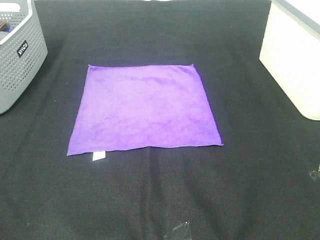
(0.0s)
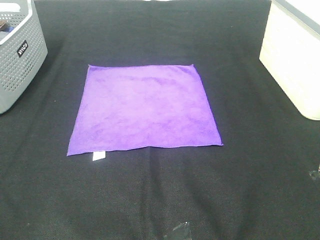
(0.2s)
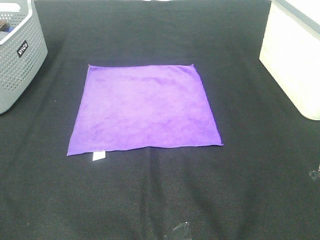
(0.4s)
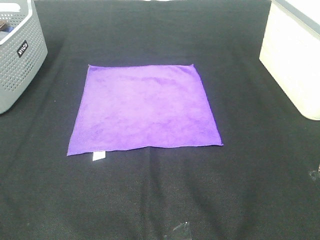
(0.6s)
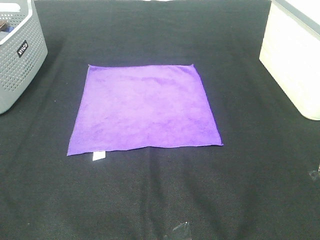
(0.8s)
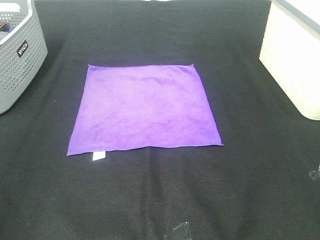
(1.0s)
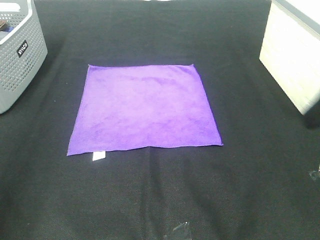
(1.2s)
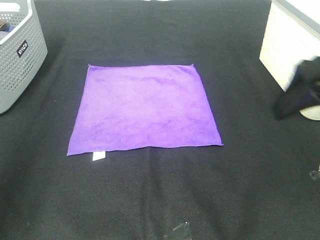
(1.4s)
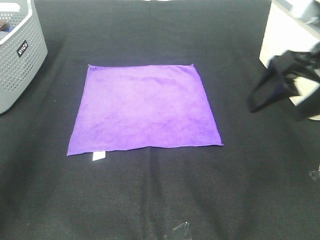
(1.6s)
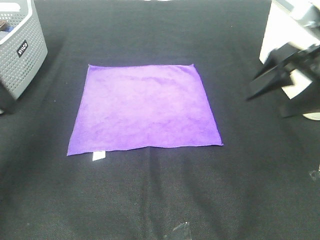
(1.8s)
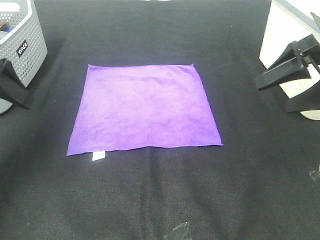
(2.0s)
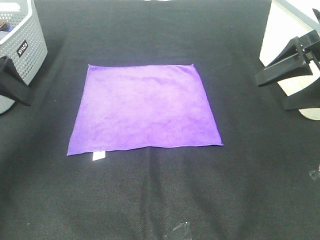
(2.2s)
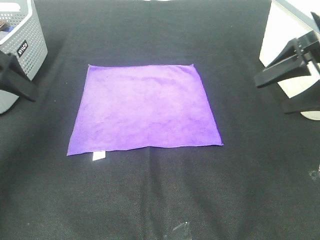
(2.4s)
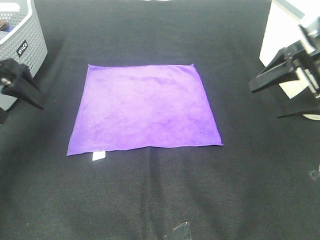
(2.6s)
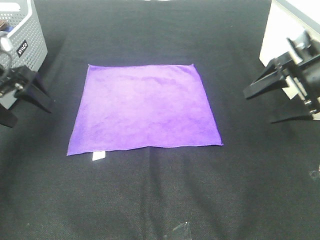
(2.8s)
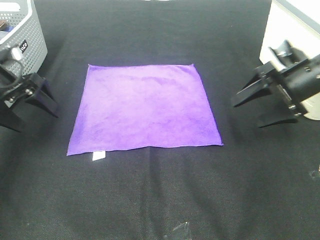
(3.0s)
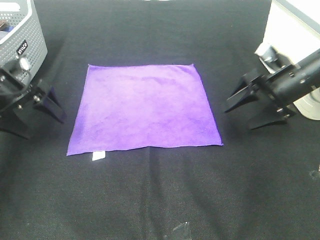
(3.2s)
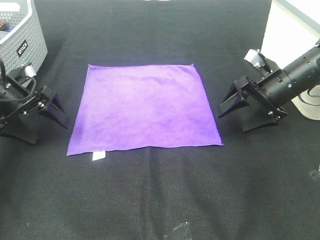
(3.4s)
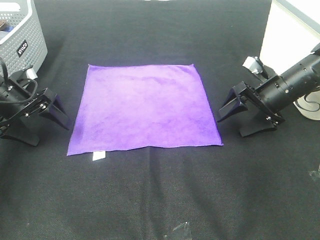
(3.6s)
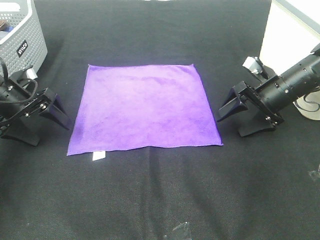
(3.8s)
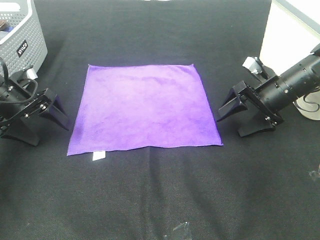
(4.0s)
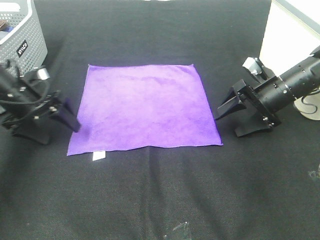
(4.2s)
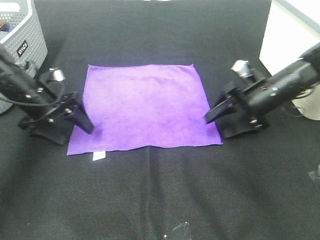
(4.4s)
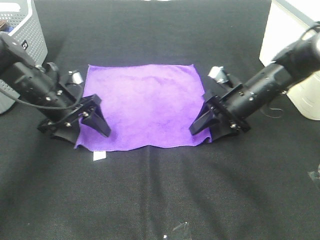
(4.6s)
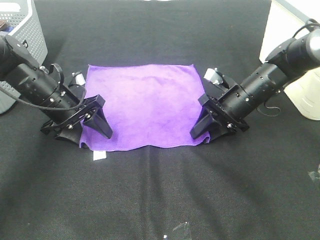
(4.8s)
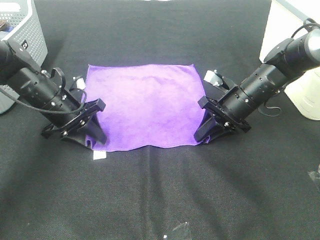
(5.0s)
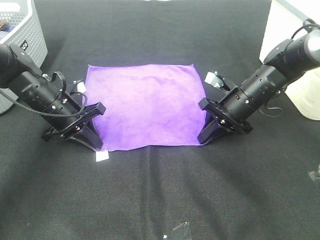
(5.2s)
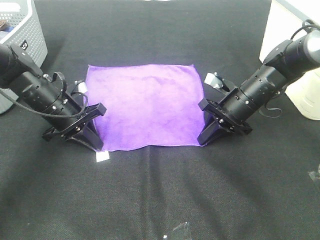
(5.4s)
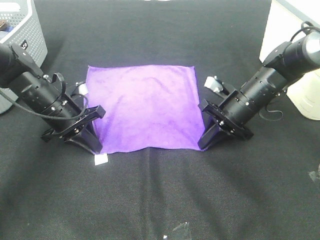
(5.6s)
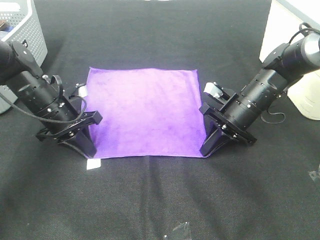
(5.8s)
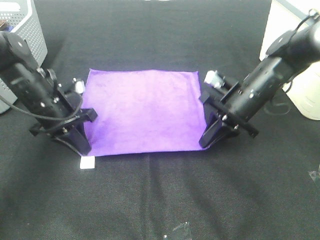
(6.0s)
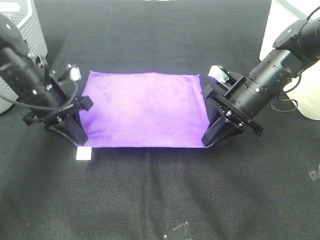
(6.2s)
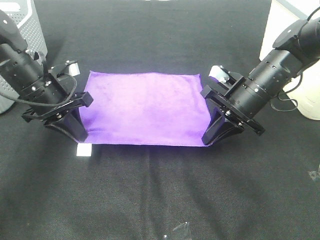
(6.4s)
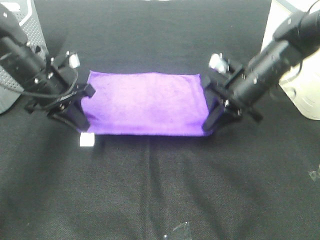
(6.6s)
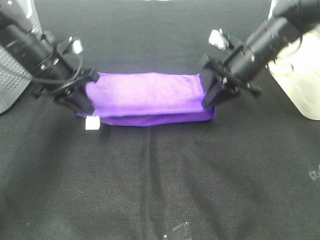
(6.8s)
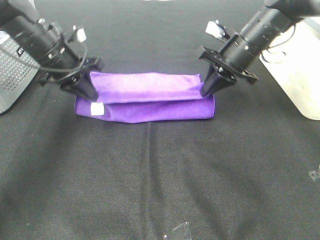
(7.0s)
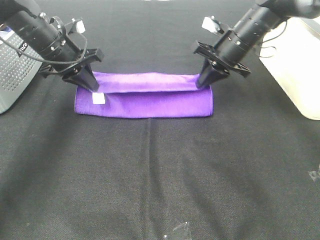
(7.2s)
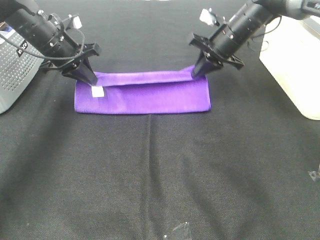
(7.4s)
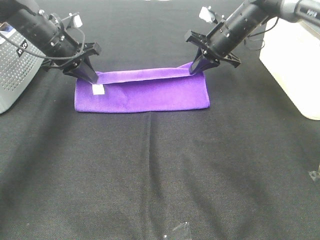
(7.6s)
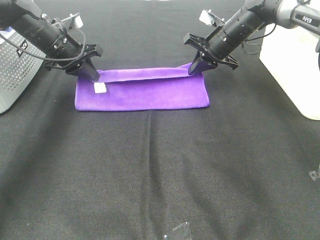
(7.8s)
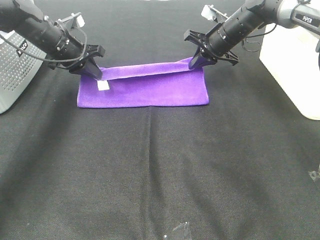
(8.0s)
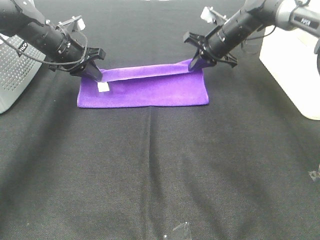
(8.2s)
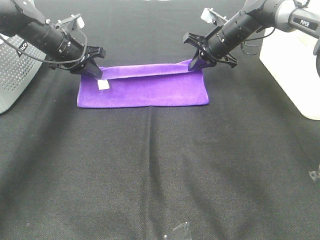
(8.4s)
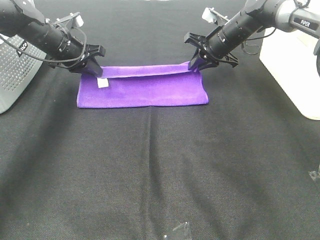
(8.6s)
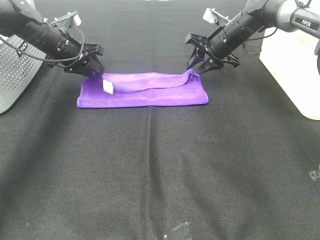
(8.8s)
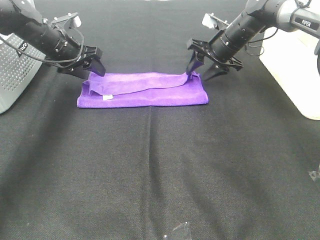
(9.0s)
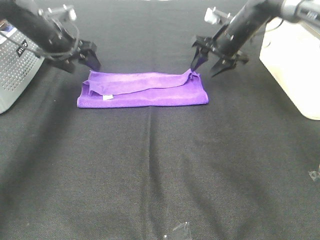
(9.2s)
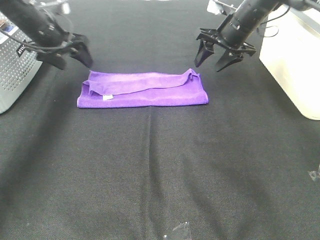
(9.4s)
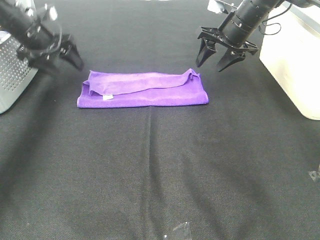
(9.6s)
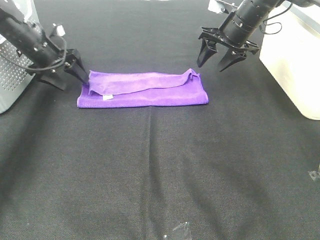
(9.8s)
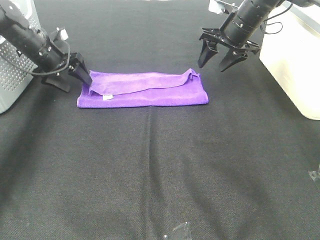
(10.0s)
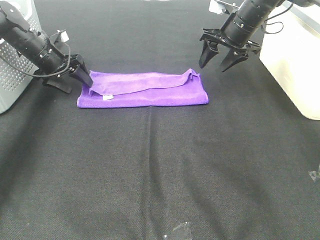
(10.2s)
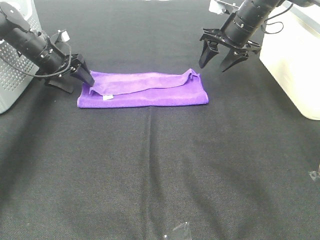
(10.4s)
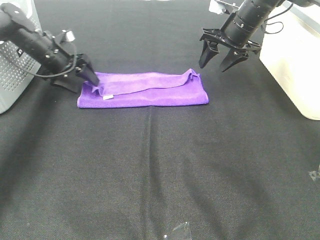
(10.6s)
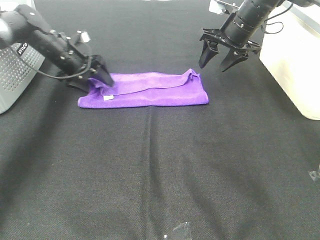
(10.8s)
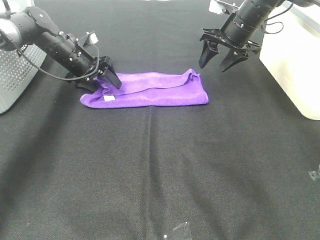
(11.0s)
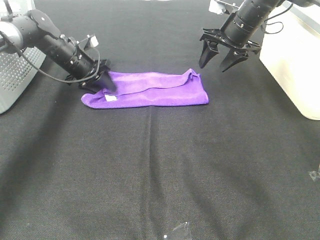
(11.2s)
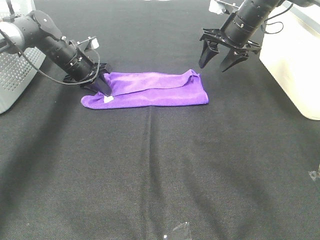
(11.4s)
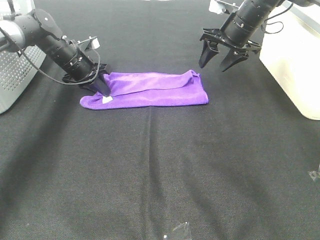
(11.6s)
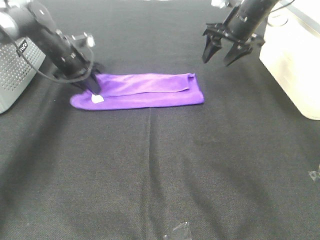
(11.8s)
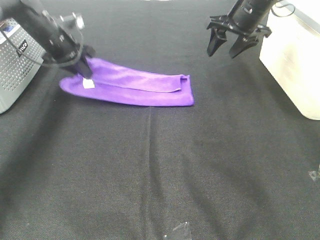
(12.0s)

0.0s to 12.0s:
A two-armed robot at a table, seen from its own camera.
Task of the whole recording: Fold towels.
Step, 0.0s to 5.4s: Left hand: grab the bottom left corner of purple towel.
Step, 0.0s to 5.4s: Right hand: grab the bottom right corner of purple towel.
Step, 5.6s to 8.4s: Left hand: fold the purple towel up.
Step, 5.6s to 8.4s: Right hand: fold the purple towel up.
0.0s to 1.6s: The grippers both shift forward by approximately 25 cm.
1.6s to 3.0s: The right gripper shifts some 15 cm downward and forward. The left gripper goes some 20 cm forward and downward.
3.0s to 4.4s: The right gripper heads downward, covering roughly 5 cm. Meanwhile the left gripper heads to the right and downward, covering about 10 cm.
4.4s to 6.0s: The left gripper closes. The right gripper ends up roughly 5 cm from where it was, and closes up.
6.0s to 7.6s: The two grippers go roughly 15 cm forward.
7.6s to 9.0s: The right gripper opens its fingers. Meanwhile the left gripper opens.
9.0s to 10.4s: The left gripper shifts by approximately 5 cm; the right gripper moves upward, roughly 5 cm.
10.4s to 12.0s: The left gripper heads upward, covering approximately 5 cm, and closes up.

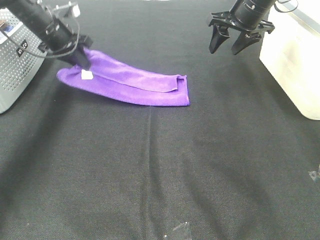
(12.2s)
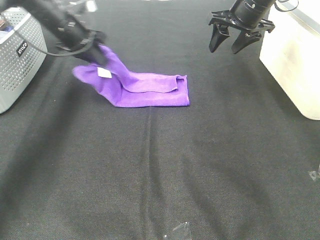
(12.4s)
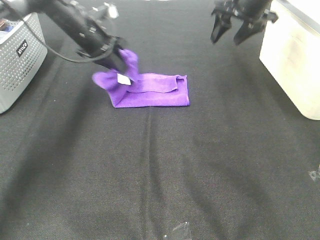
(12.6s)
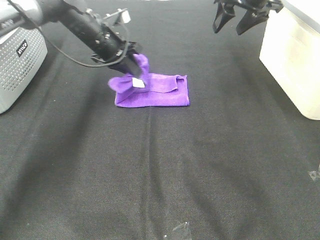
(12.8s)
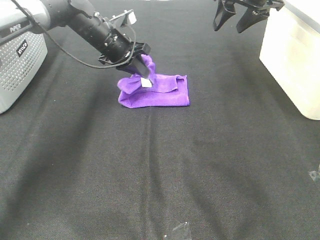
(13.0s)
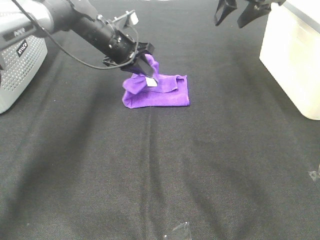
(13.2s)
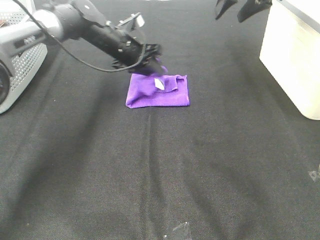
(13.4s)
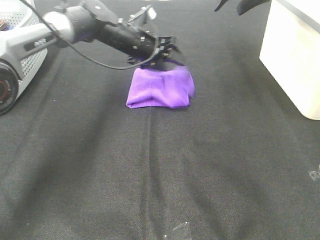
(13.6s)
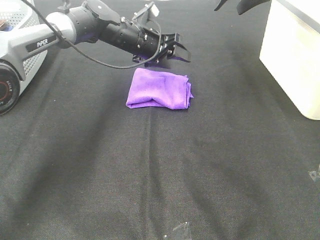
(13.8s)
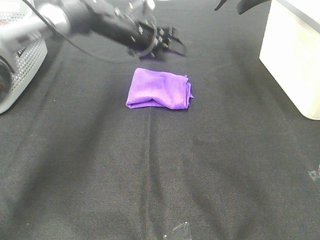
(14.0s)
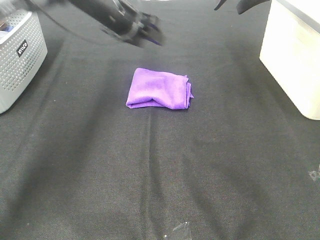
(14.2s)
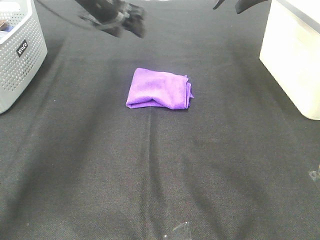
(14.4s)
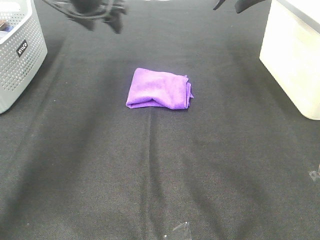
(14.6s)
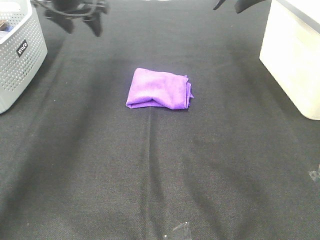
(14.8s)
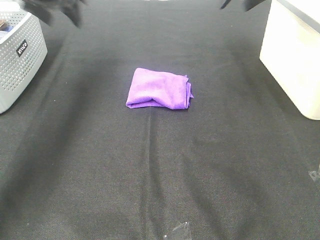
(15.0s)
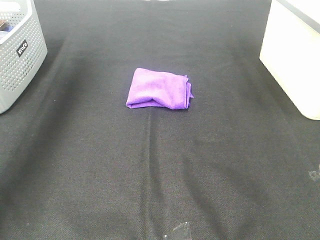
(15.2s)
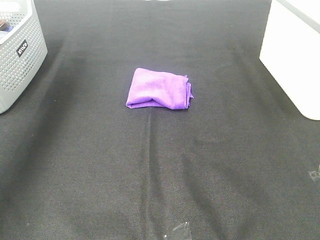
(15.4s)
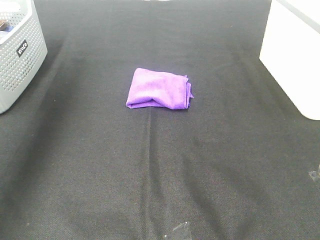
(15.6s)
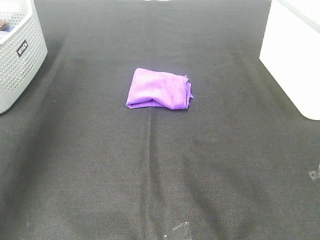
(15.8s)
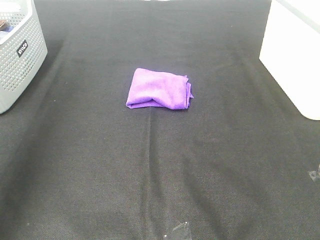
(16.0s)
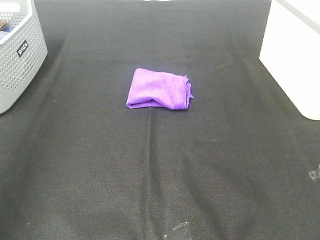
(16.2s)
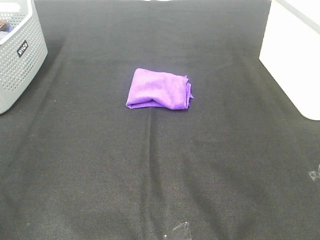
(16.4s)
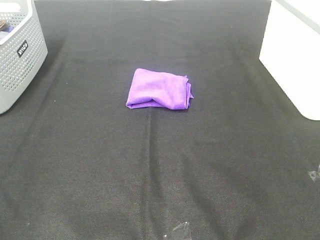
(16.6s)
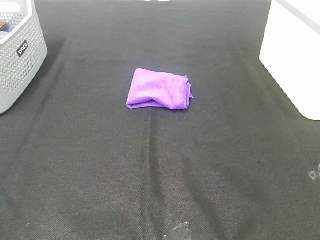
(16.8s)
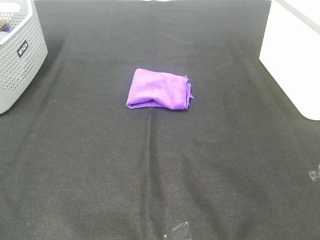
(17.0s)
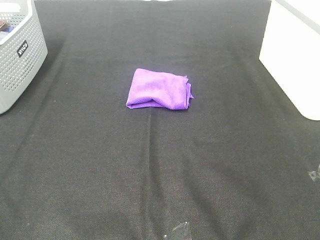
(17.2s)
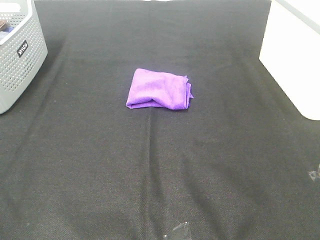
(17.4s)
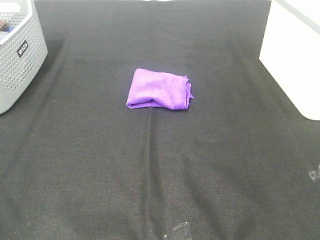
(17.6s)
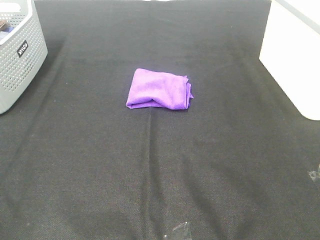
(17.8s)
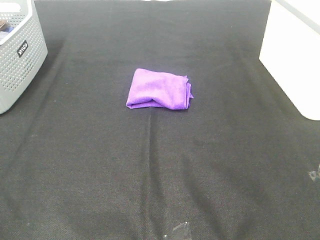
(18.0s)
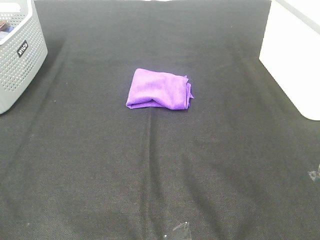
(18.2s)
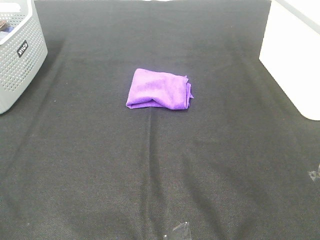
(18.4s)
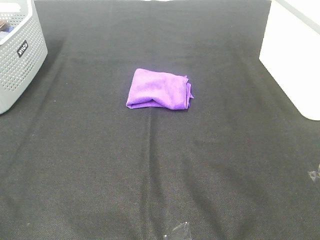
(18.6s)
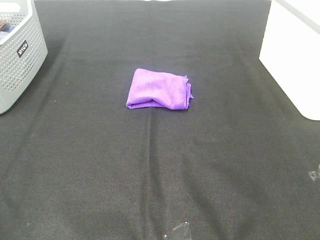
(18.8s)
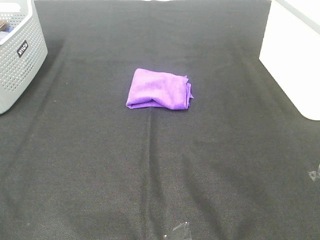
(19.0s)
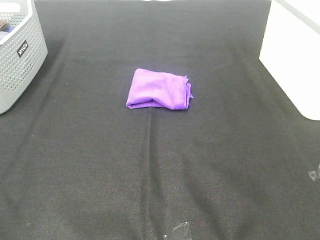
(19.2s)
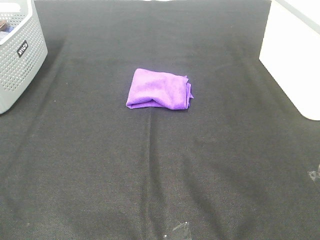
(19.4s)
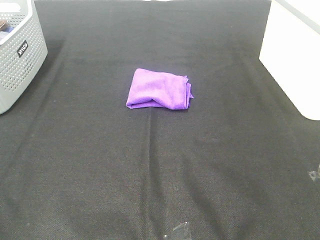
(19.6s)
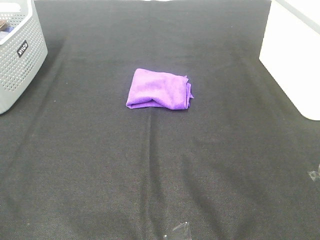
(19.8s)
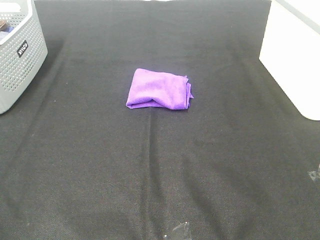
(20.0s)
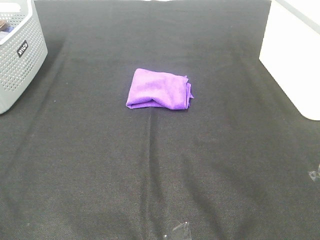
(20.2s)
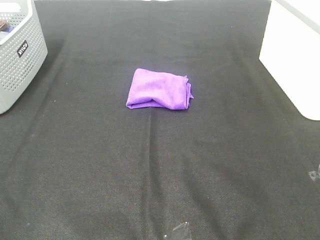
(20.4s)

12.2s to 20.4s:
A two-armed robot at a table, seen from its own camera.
Task of the whole recording: Fold towels.
12.2s to 13.8s: The left gripper goes roughly 20 cm to the right, and opens up. The right gripper shifts some 10 cm upward.
13.8s to 15.4s: The right gripper is displaced backward and upward by roughly 15 cm, while the left gripper goes roughly 35 cm upward and to the left.
15.4s to 17.2s: The left gripper heads backward, covering approximately 40 cm.
18.8s to 20.4s: Both grippers stay about where they are.
